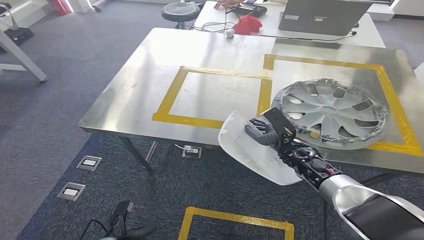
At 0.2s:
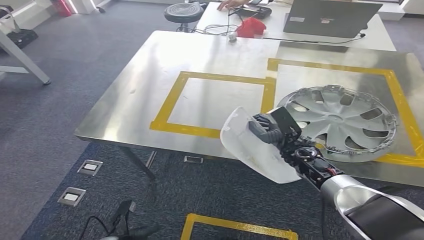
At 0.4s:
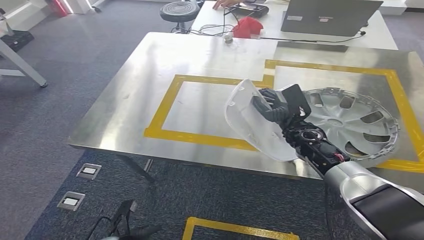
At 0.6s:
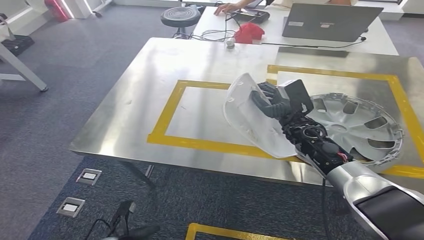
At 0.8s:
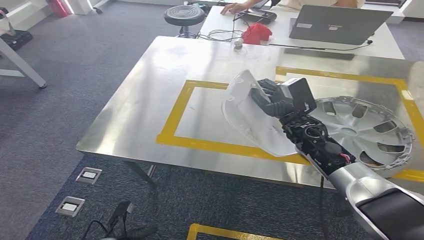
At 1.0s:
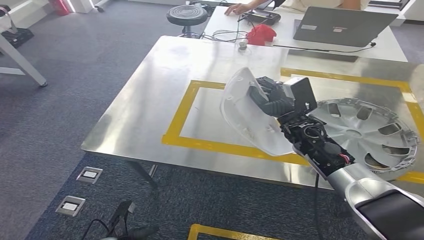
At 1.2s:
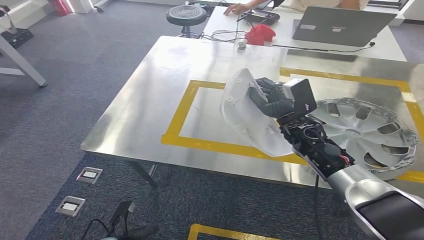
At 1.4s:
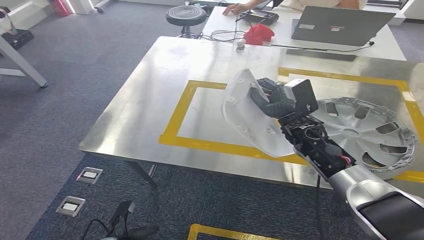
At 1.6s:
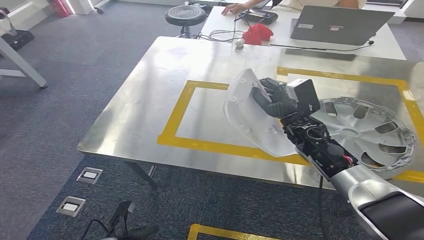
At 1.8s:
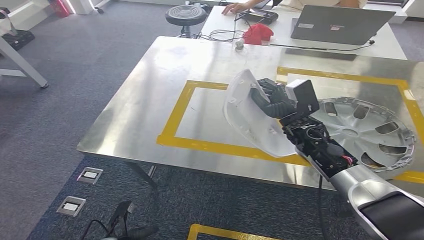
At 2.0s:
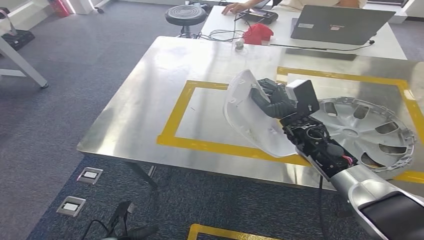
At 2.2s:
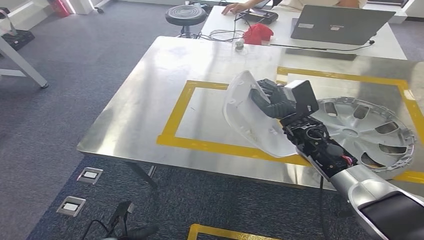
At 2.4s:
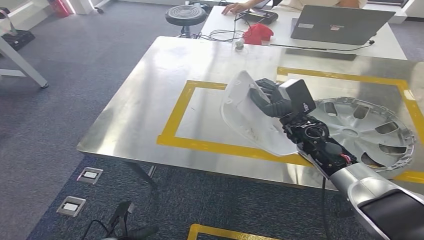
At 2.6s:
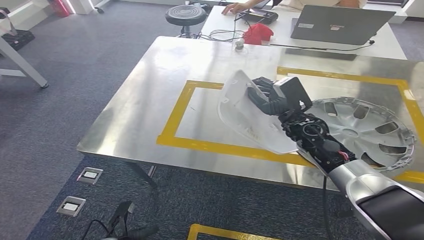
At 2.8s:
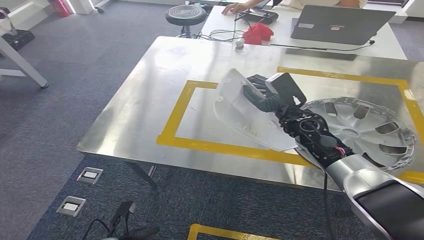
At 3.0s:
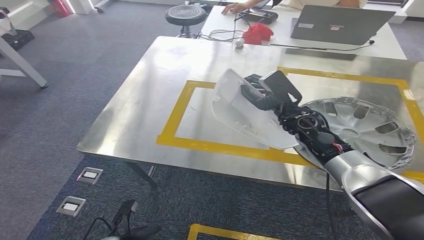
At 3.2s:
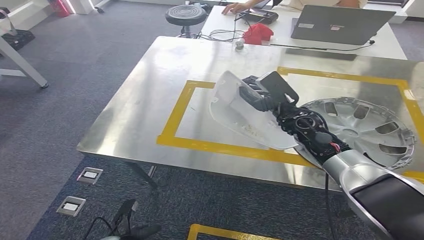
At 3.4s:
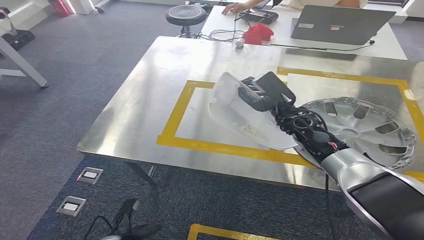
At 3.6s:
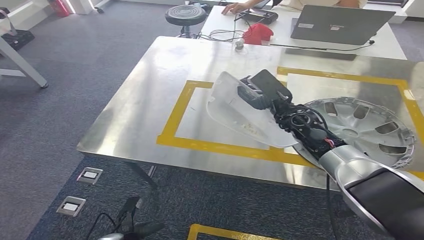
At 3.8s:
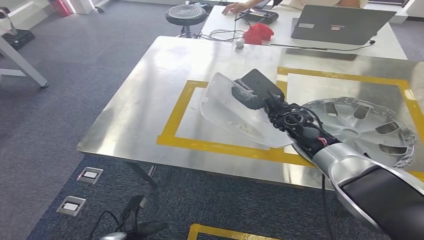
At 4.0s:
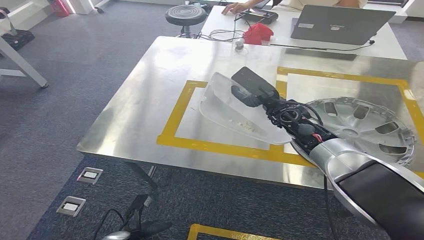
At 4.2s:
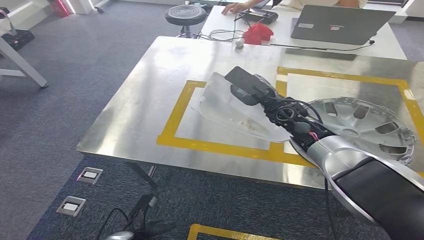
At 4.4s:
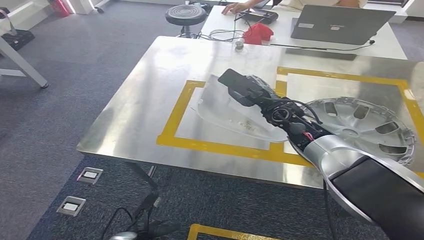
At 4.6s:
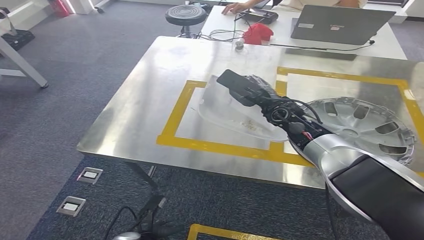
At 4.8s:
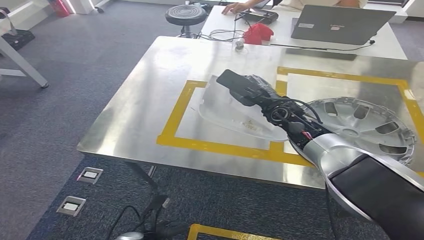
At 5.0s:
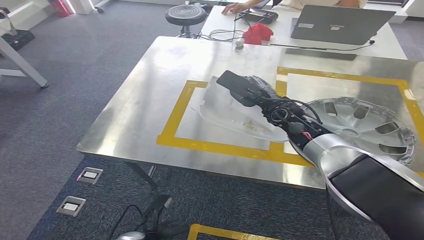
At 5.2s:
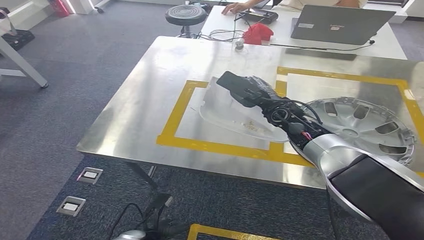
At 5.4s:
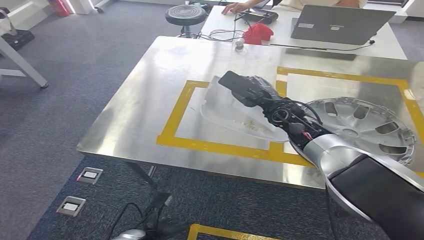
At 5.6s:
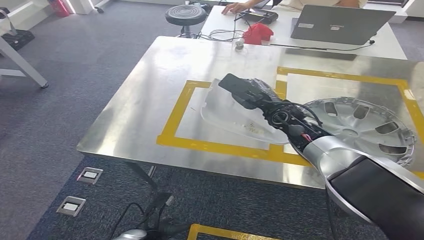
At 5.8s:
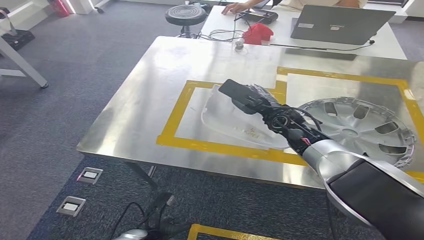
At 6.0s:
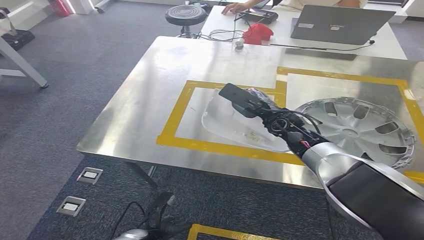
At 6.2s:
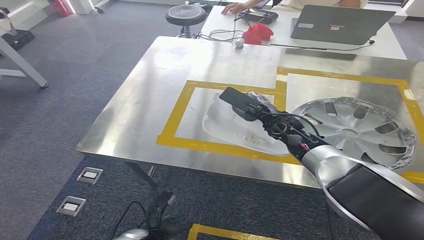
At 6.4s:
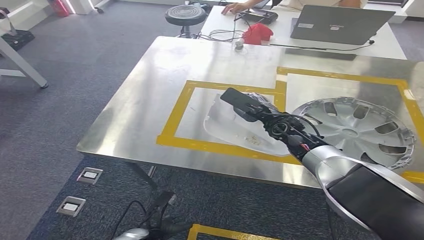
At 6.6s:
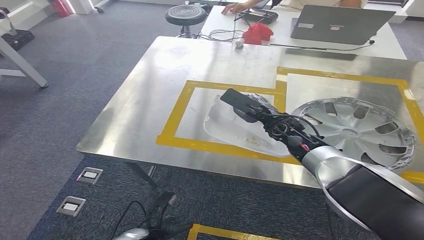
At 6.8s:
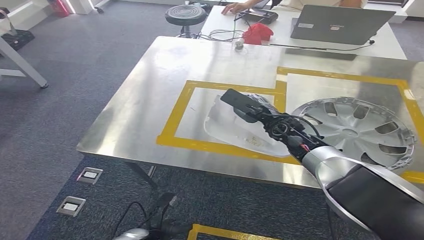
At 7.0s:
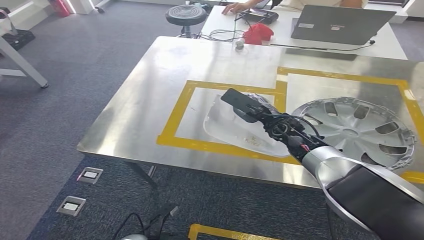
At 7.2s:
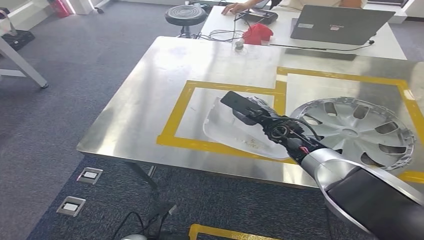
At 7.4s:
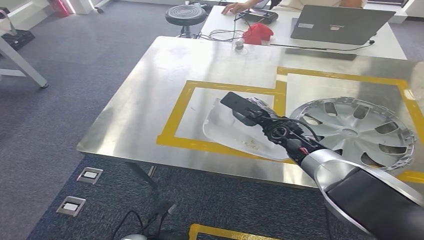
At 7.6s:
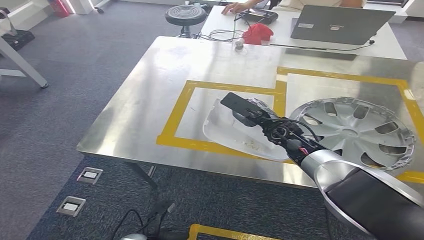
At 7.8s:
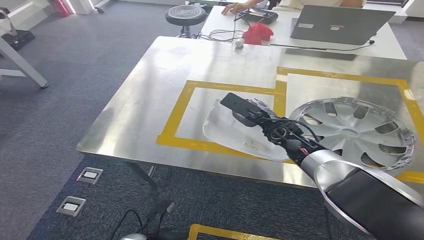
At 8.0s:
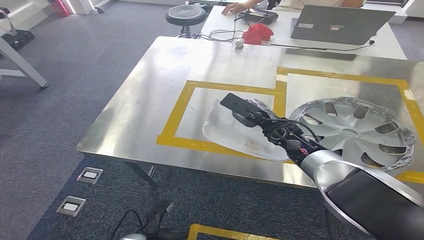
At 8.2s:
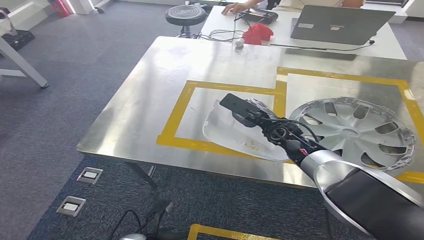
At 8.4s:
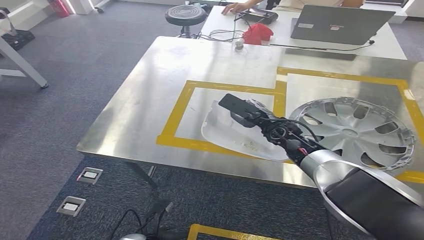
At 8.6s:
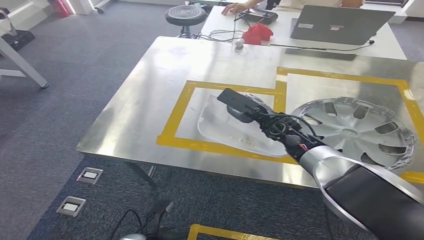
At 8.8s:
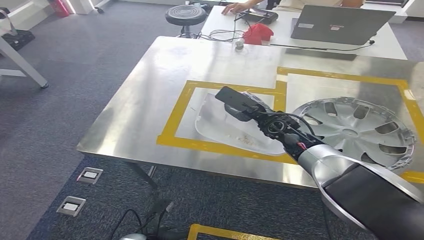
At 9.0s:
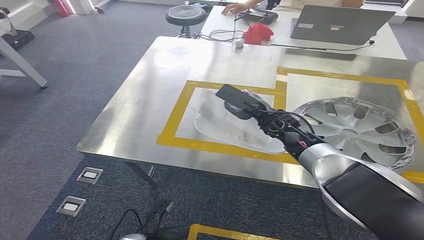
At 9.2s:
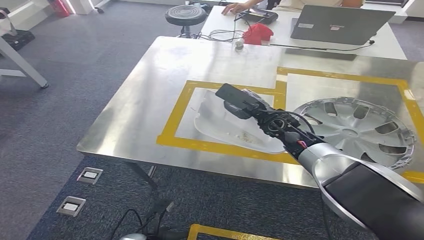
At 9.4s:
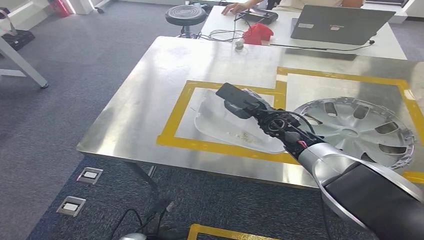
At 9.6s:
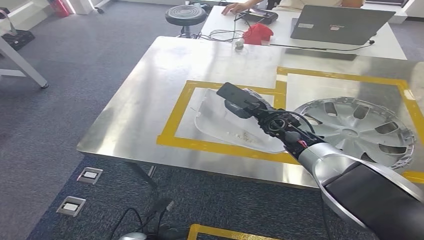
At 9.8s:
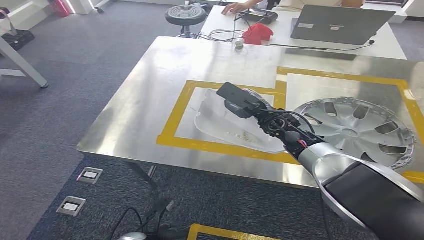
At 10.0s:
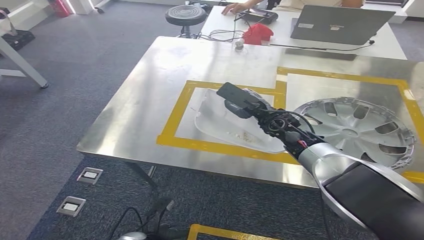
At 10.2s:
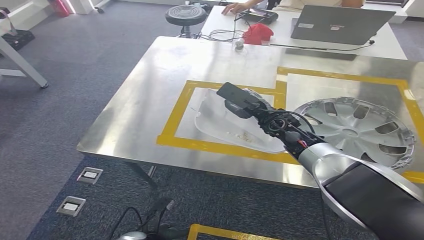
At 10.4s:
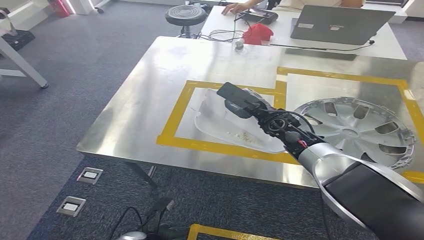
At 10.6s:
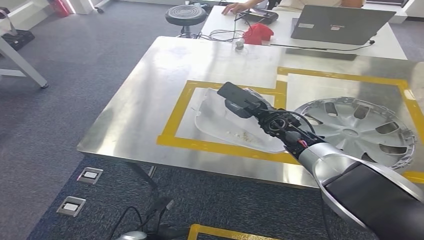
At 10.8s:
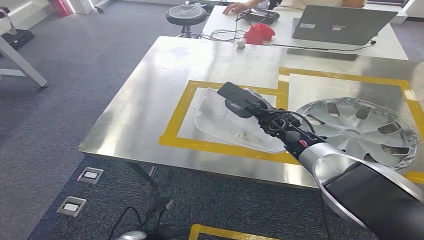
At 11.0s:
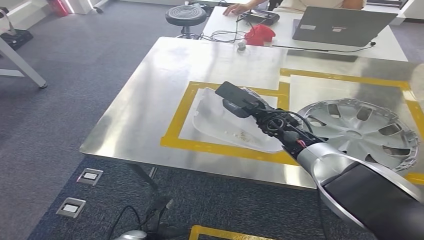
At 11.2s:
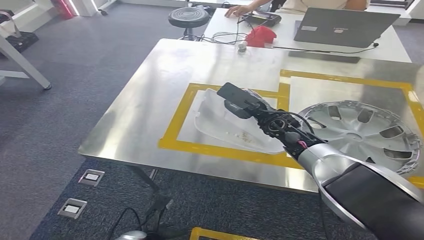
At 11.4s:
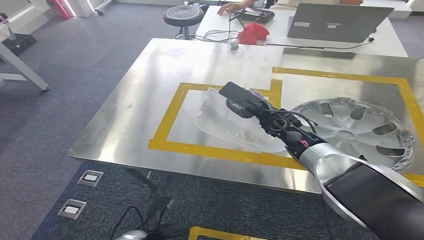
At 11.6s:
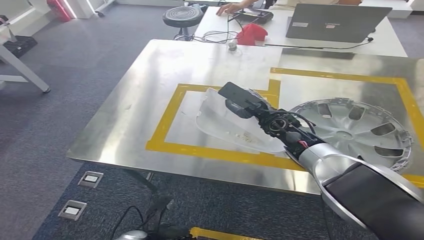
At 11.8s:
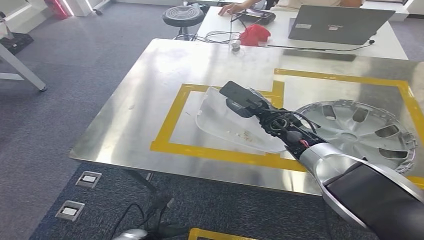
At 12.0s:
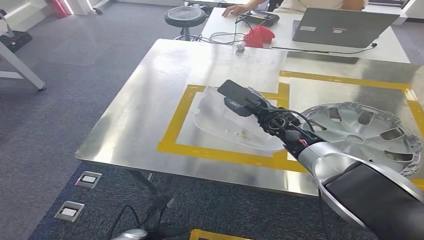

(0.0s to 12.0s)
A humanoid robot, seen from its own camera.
1.6s - 3.0s: There are only small adjustments of the hands.
3.0s - 4.4s: The right hand ends up about 5 cm from where it was.
4.4s - 6.0s: The hands move only a little.
6.0s - 9.0s: The hands make only small movements.
9.0s - 12.0s: Neither hand changes place.

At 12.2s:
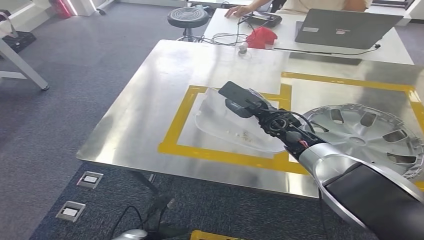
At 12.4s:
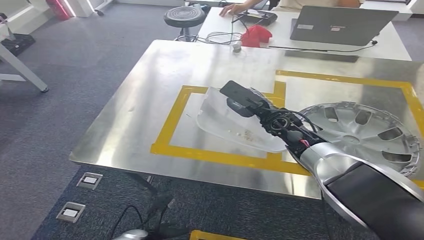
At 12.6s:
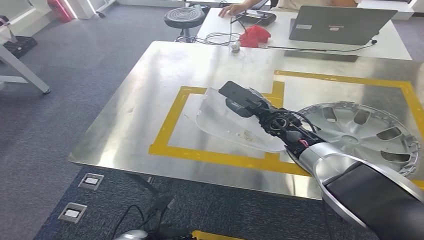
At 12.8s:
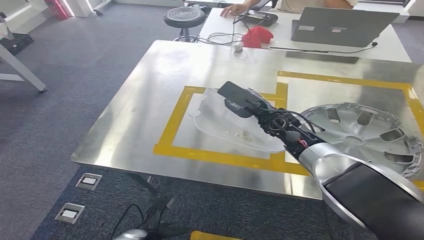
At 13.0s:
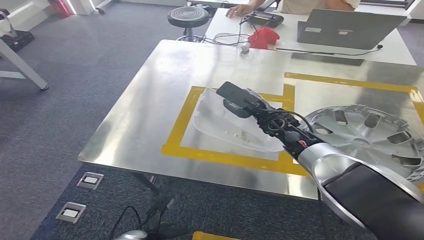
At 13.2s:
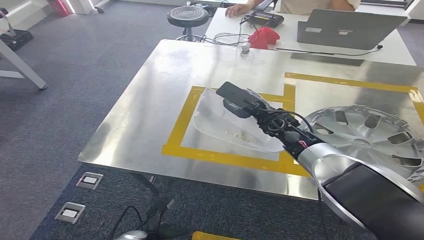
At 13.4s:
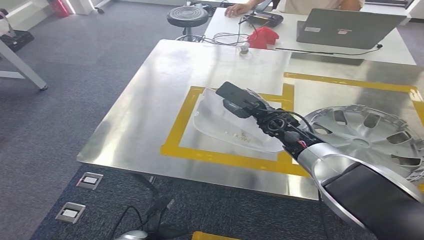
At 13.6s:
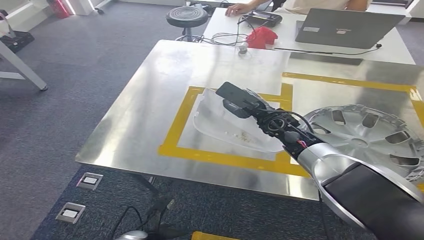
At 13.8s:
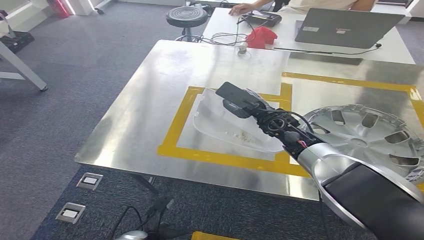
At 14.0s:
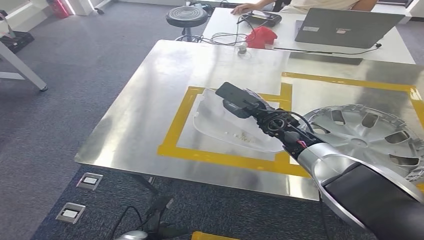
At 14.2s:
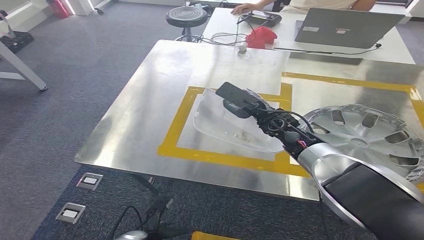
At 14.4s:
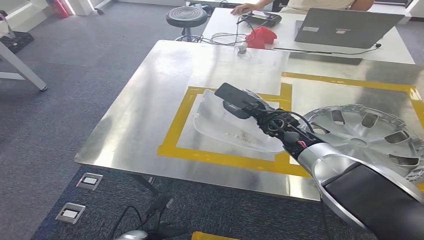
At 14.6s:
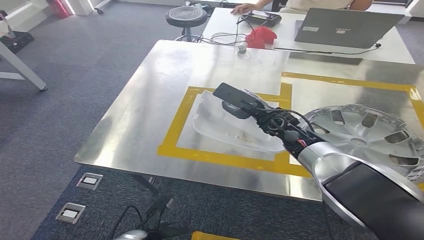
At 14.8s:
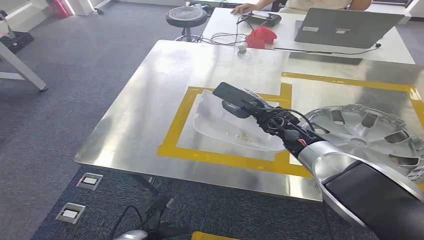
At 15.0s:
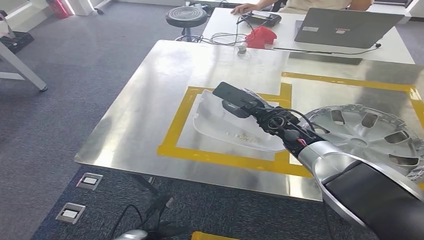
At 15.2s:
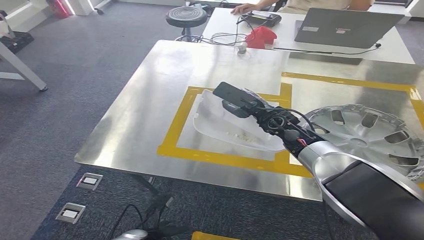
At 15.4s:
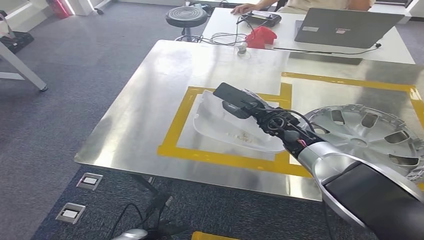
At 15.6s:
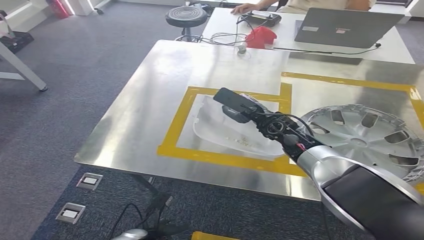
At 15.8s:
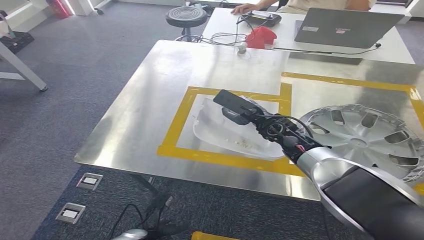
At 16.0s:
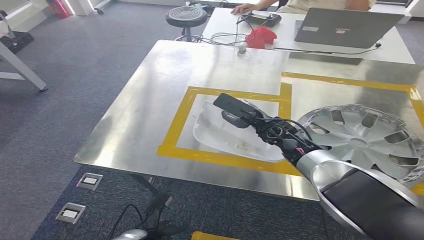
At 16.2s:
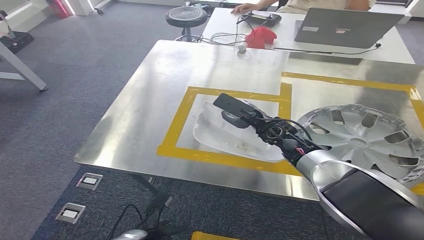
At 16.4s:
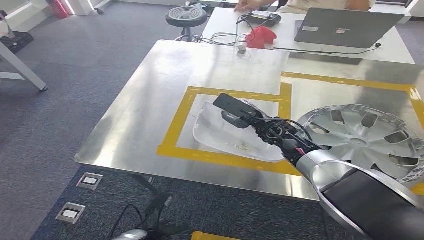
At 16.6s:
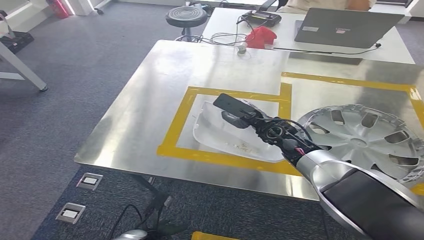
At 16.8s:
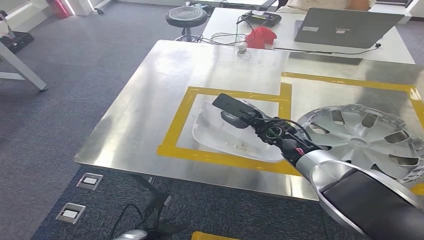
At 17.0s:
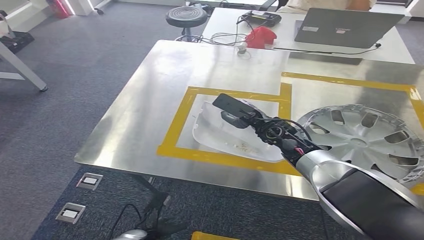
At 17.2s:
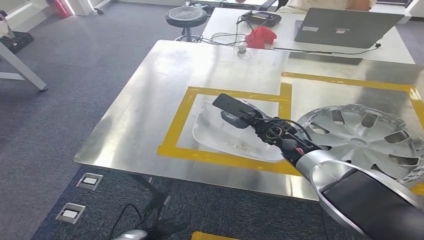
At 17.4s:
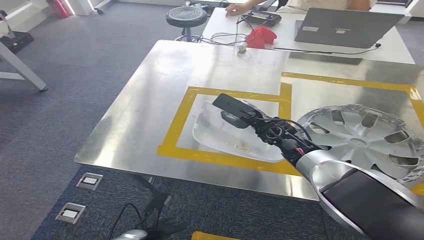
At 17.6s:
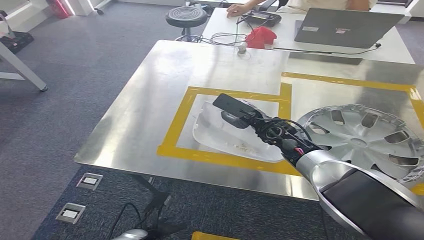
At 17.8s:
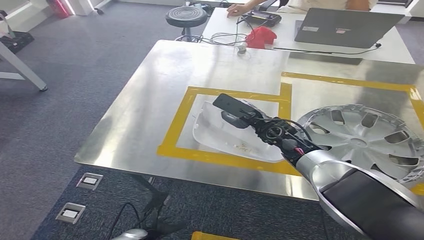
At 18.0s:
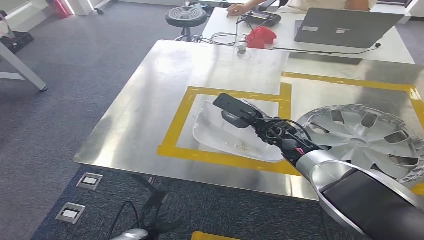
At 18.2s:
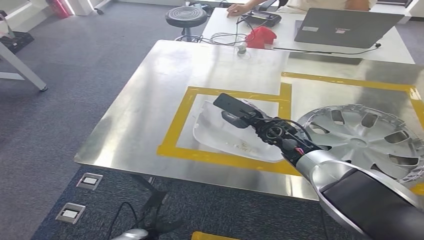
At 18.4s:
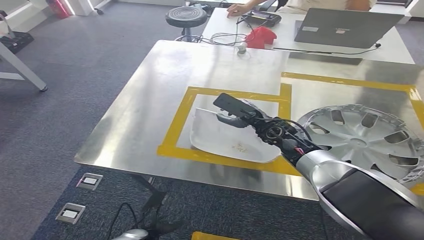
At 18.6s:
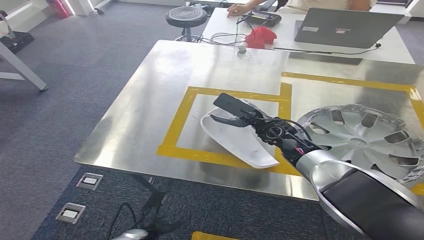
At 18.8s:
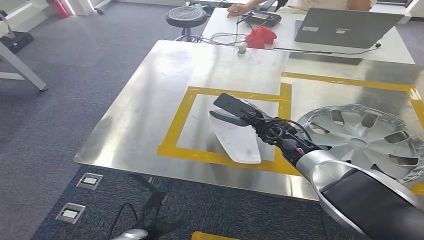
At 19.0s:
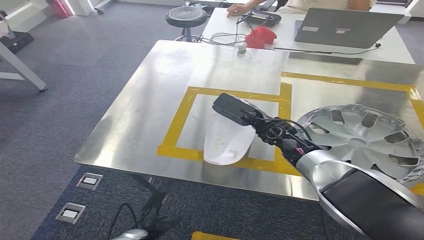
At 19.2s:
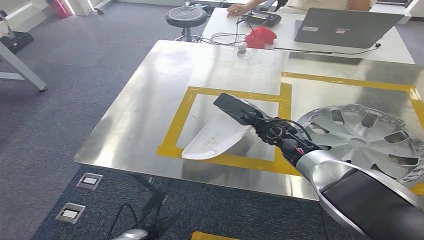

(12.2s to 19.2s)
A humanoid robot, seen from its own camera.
12.2s - 15.0s: Both hands stay about where they are.
15.0s - 16.4s: The hands make only small movements.
16.4s - 17.8s: Neither hand changes place.
17.8s - 19.2s: The two hands keep their place.
